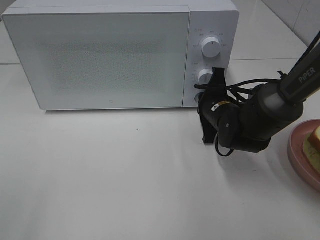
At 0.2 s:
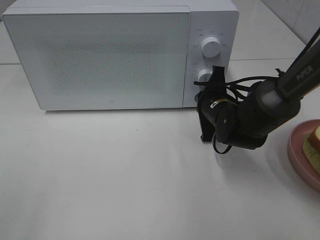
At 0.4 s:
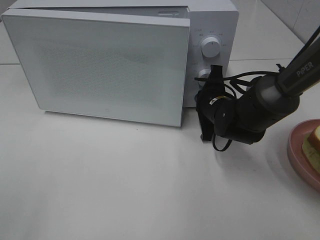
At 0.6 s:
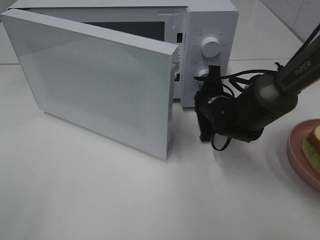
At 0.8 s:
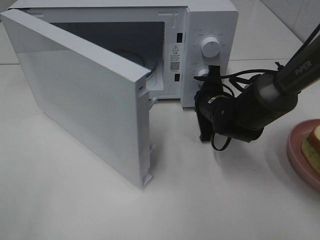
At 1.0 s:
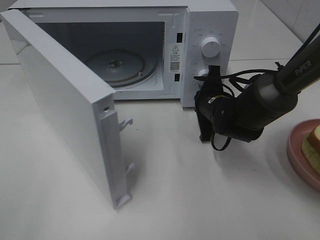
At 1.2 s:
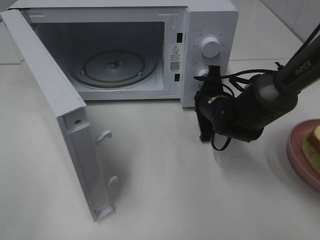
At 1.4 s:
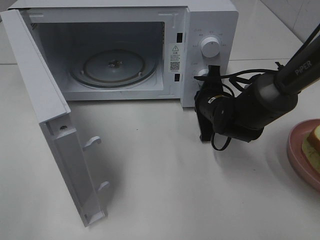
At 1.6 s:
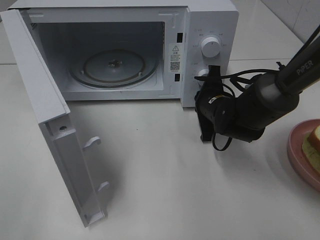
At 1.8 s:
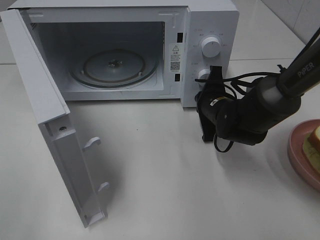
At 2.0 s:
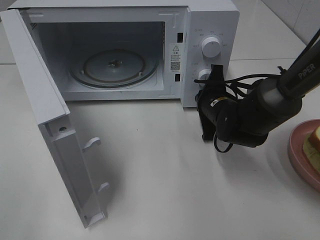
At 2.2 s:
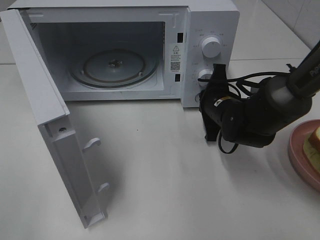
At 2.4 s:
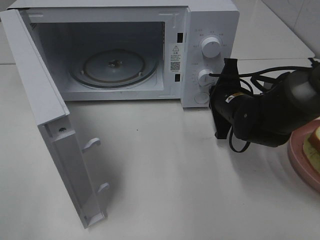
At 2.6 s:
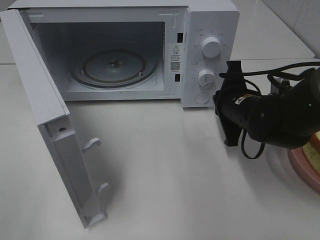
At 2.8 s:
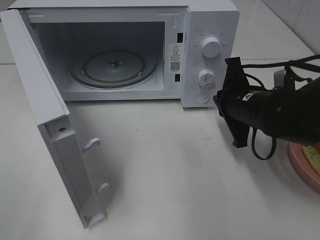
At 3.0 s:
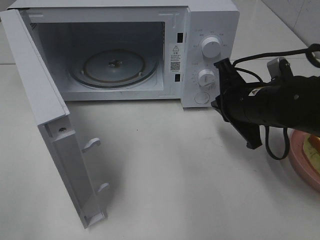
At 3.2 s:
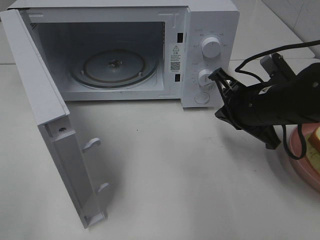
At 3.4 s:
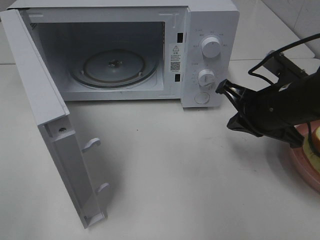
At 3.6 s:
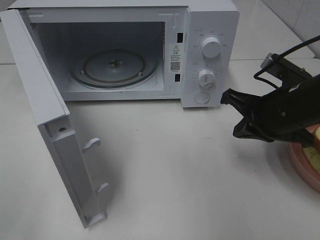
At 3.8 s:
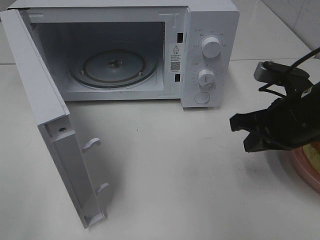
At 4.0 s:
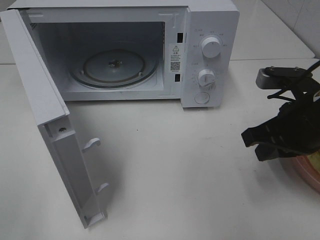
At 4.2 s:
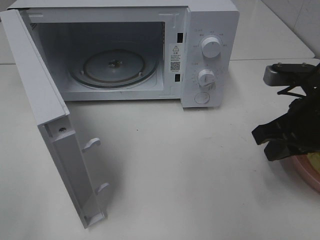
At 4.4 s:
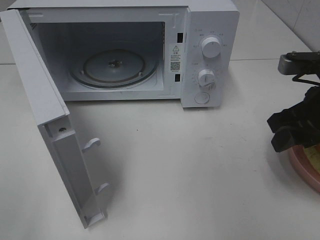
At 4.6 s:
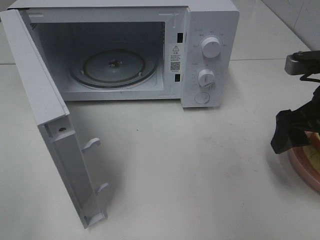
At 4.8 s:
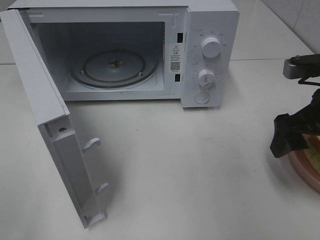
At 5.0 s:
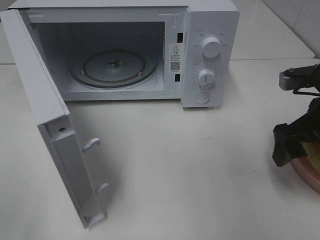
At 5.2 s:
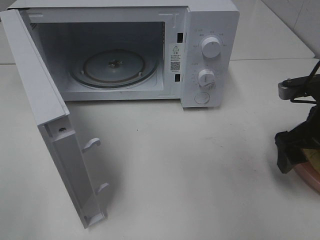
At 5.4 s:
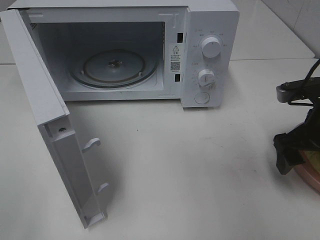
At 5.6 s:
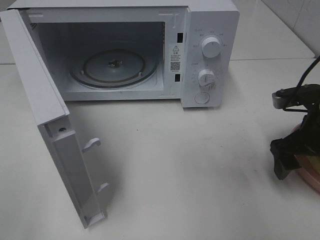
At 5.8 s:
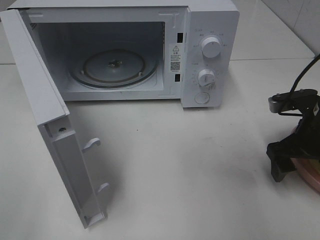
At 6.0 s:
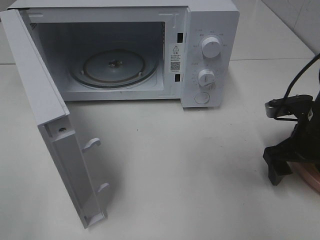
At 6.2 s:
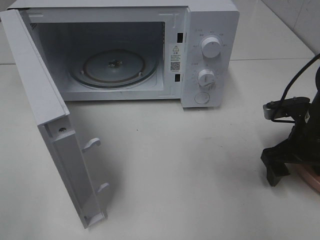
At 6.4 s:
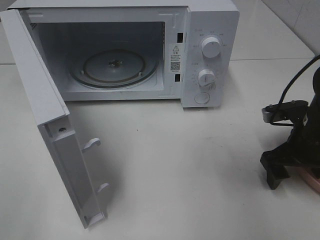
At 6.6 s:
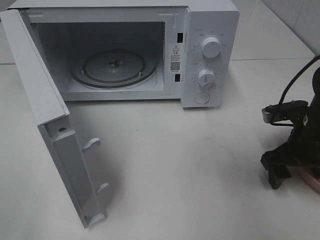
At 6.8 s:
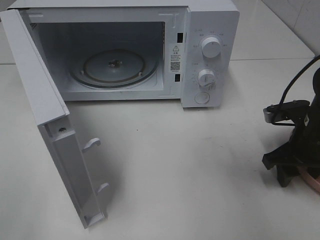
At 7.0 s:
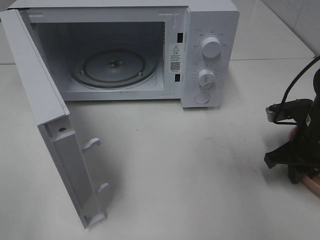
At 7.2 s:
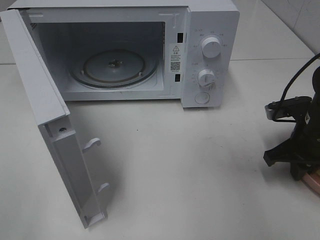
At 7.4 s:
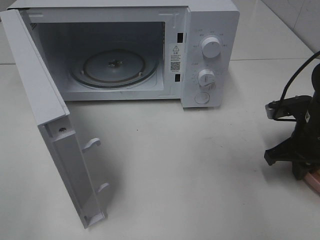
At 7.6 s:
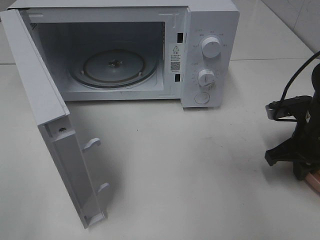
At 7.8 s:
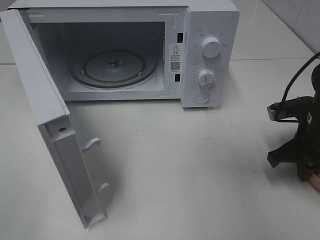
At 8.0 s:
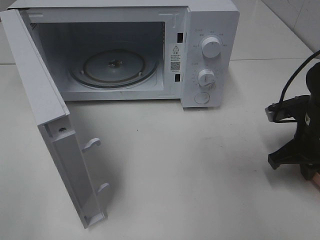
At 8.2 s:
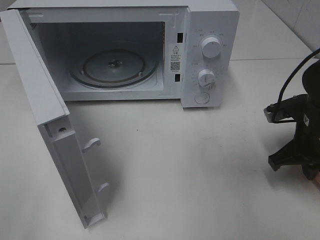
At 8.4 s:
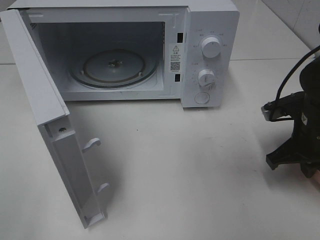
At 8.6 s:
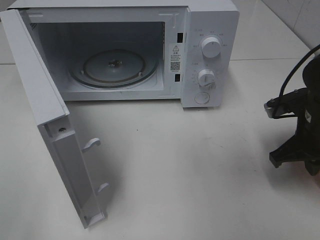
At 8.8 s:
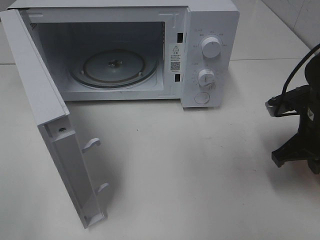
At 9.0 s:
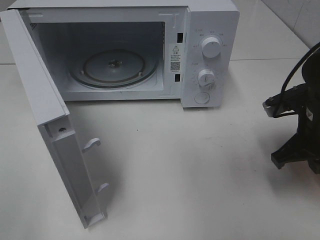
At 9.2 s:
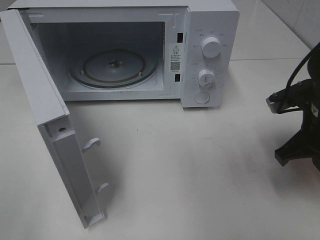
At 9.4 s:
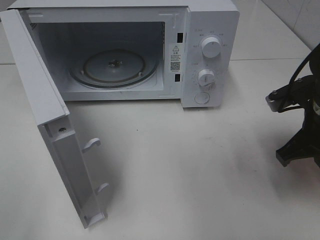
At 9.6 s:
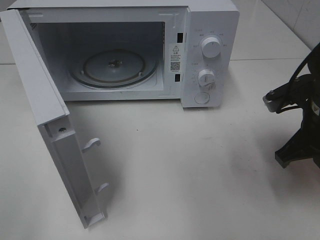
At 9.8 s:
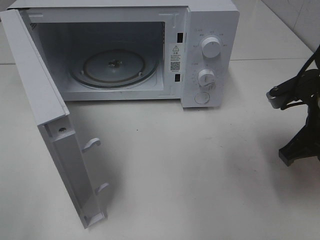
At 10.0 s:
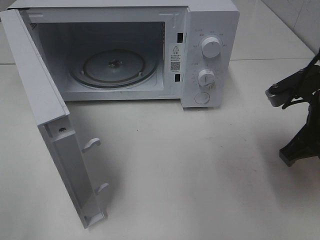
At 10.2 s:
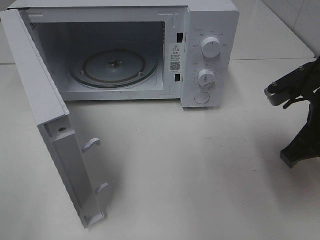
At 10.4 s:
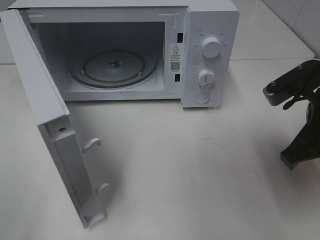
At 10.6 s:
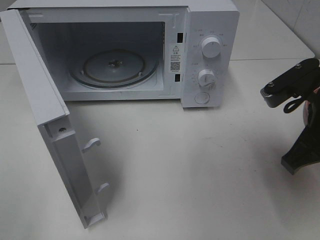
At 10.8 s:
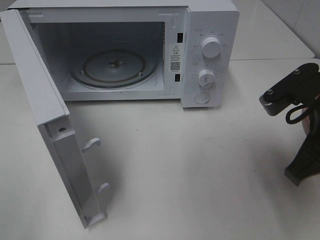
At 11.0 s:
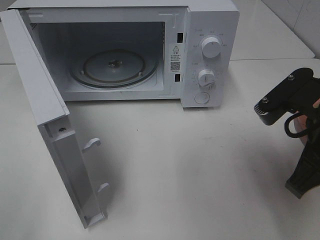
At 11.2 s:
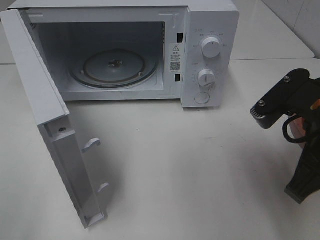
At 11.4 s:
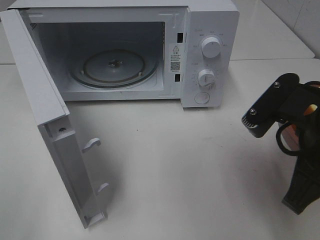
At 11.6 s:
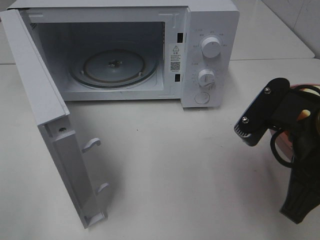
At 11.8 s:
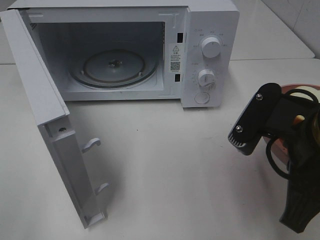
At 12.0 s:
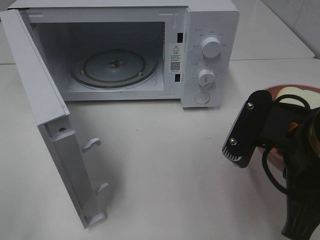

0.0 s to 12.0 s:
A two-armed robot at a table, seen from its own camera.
Task of the whole recording: Heat Sandwich.
Step, 0.0 to 2.4 s: Right hand: press the switch.
Step, 2.6 to 8.2 s: Right hand: grab the plate with the sandwich.
1.6 to 3.0 s: The right gripper is displaced backward and upward by roughly 10 cm.
3.0 to 4.4 s: The right gripper heads to the right and upward, covering some 10 cm, and opens up.
4.4 to 6.0 s: The right gripper is displaced downward by approximately 10 cm, and opens its fingers.
6.0 to 7.6 s: The right gripper closes its fingers.
7.6 to 9.0 s: The grippers make only small movements.
9.0 to 10.4 s: The right gripper shifts roughly 5 cm upward.
10.4 to 12.0 s: The right gripper goes some 10 cm backward and to the left.

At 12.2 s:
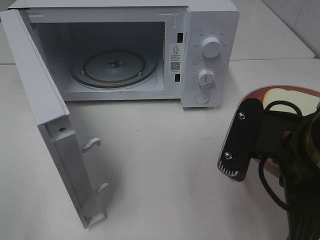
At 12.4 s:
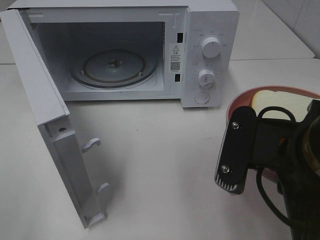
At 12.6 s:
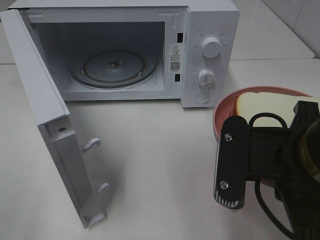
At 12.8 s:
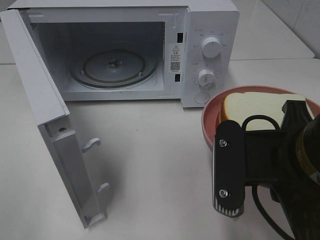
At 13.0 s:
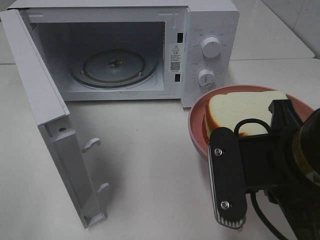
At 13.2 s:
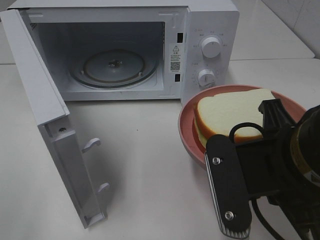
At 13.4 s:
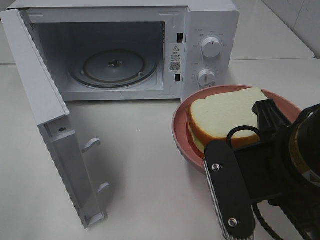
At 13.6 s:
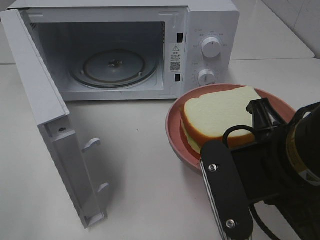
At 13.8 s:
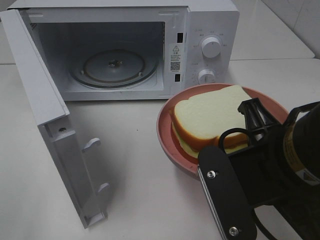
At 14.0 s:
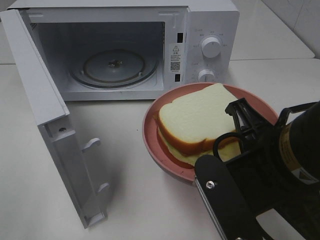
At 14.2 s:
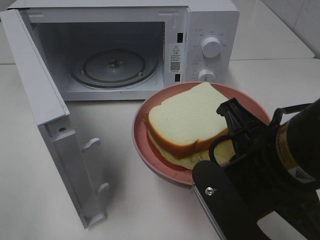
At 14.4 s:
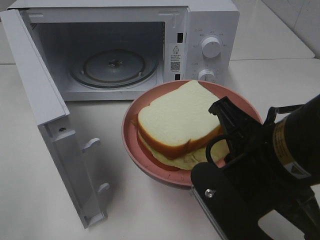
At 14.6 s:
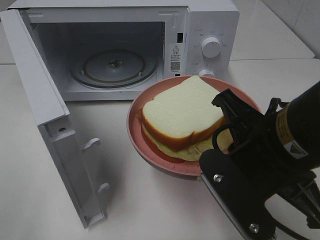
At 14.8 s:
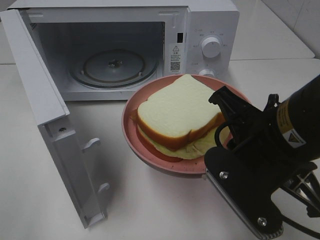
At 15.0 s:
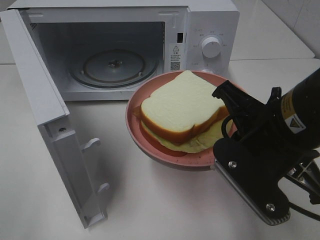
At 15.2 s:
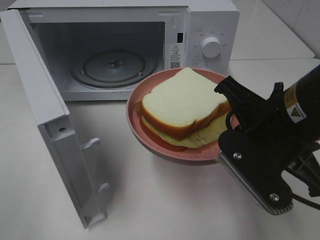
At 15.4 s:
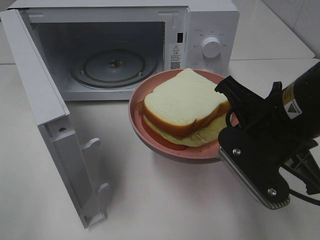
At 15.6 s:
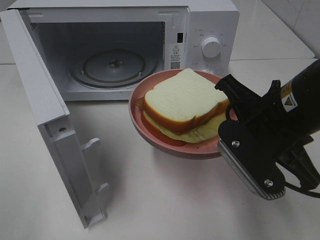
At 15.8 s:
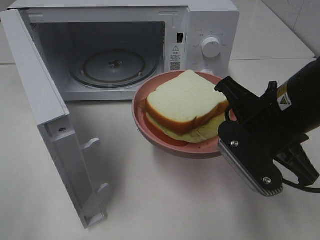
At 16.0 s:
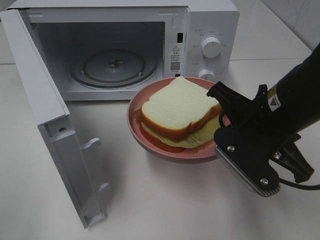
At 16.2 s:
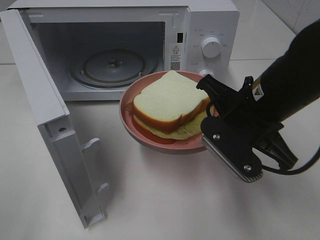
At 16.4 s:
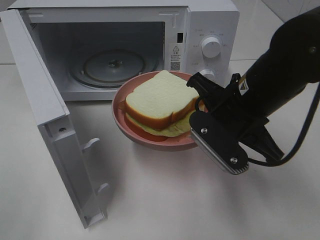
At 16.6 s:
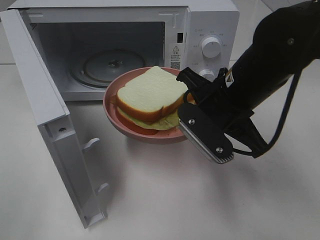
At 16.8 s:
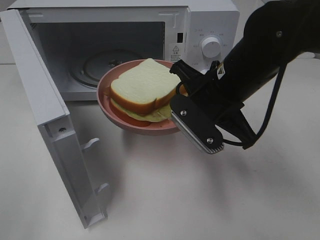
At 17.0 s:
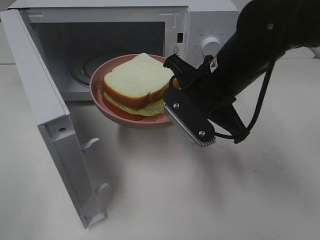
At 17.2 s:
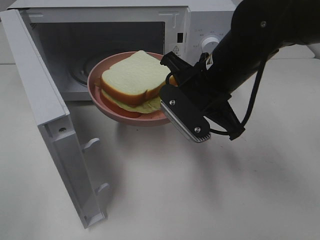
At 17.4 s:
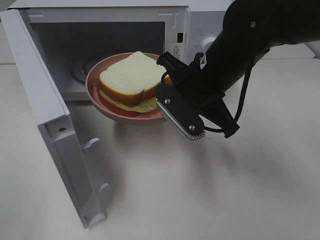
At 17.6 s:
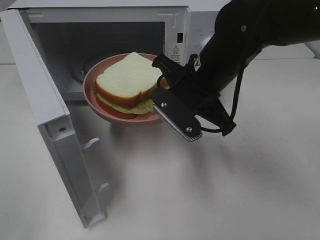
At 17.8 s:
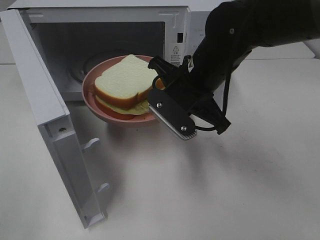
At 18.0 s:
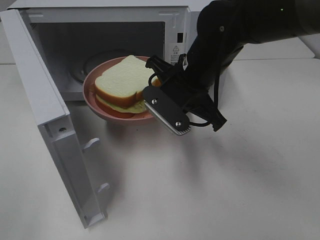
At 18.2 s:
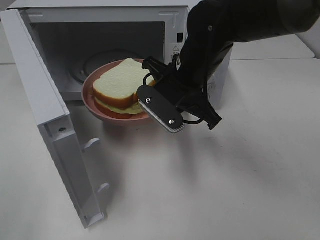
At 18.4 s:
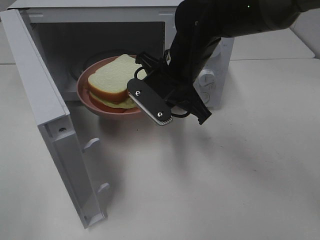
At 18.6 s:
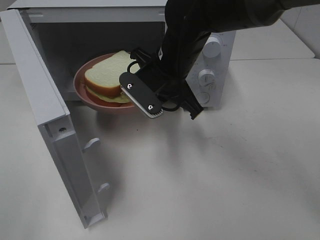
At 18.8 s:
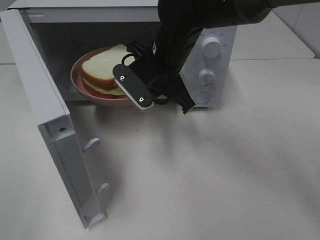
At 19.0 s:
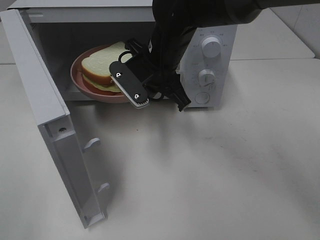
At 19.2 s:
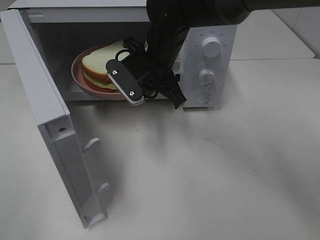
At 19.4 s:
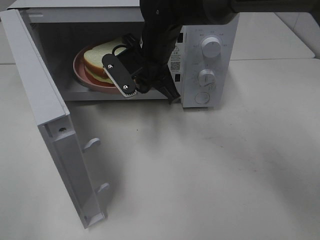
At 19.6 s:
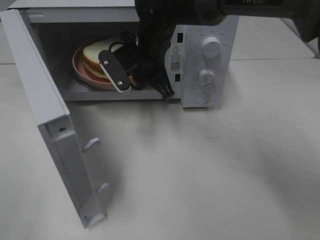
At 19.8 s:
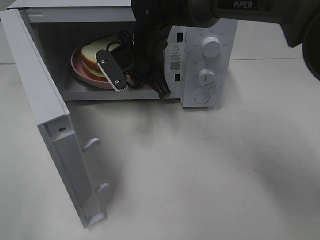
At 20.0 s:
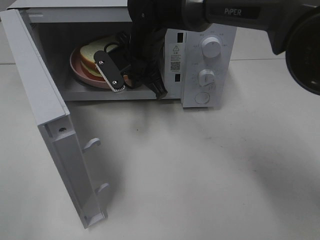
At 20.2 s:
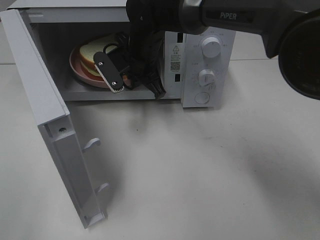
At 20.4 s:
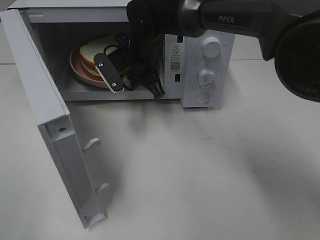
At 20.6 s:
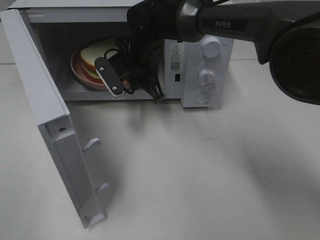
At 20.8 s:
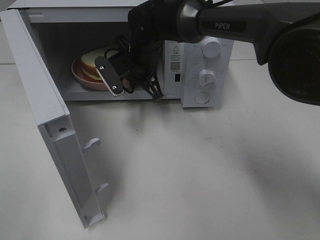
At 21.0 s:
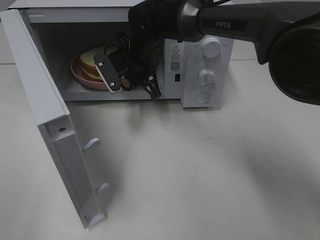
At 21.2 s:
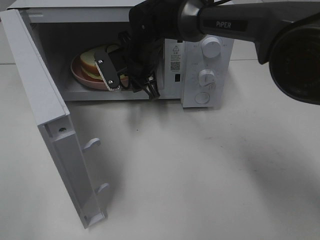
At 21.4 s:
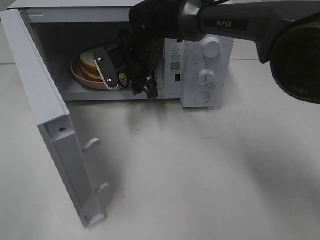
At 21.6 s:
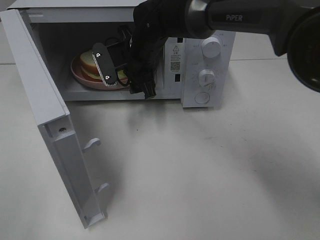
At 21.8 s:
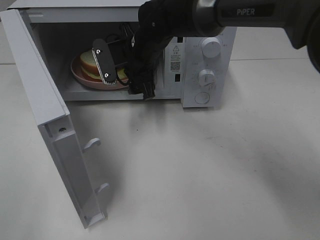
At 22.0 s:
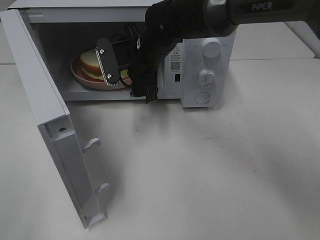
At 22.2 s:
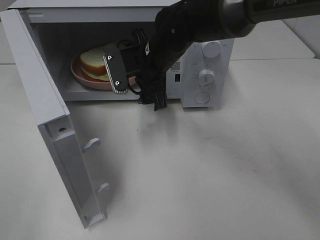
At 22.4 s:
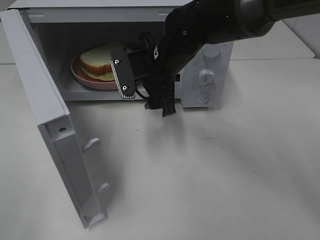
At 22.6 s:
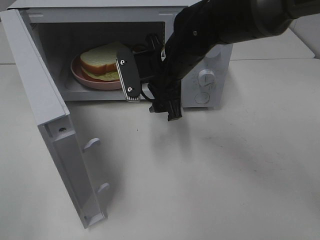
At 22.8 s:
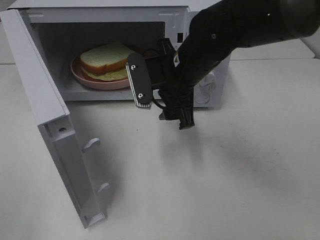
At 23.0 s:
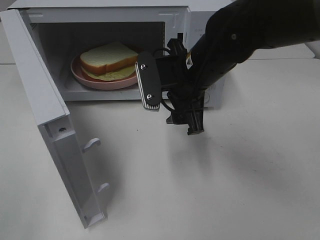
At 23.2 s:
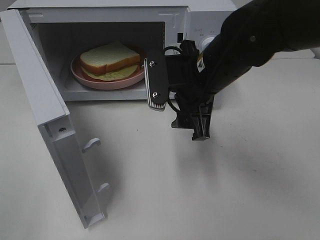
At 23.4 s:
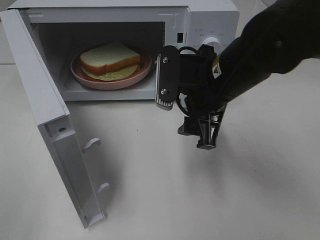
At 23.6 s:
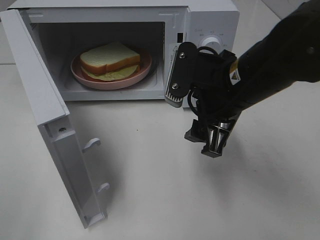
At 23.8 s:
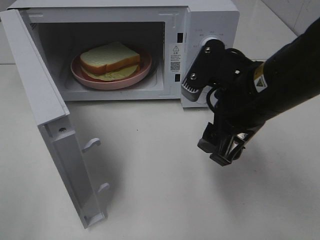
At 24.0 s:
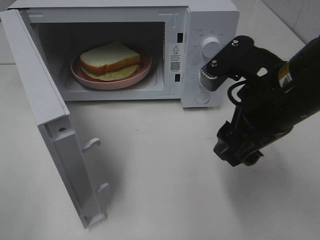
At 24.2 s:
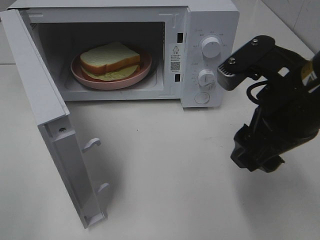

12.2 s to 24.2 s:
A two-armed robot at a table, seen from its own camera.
Task of the whole recording: Heat Sandwich.
Step, 12.2 to 22.0 s: Right hand: place the plate in the microwave.
13.8 to 15.2 s: The right gripper goes approximately 5 cm forward.
15.2 to 16.6 s: The right gripper heads forward, covering roughly 10 cm.
16.6 to 18.2 s: The right gripper travels forward and to the left by some 10 cm.
18.2 to 19.8 s: The right gripper travels forward and to the left by some 10 cm.
19.8 to 21.2 s: The right gripper opens its fingers.
21.2 to 22.6 s: The right gripper travels backward and to the right by approximately 10 cm.
22.6 to 24.2 s: The right gripper is displaced backward and to the right by some 20 cm.
